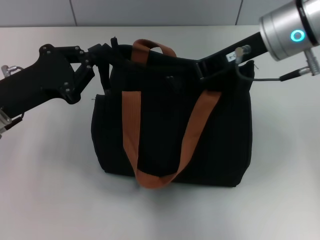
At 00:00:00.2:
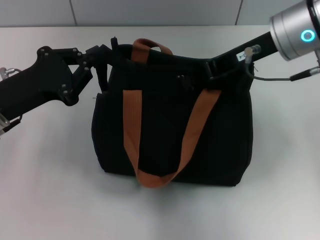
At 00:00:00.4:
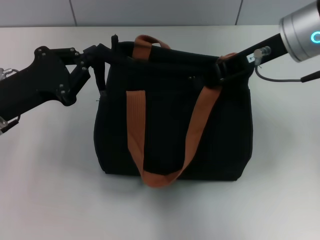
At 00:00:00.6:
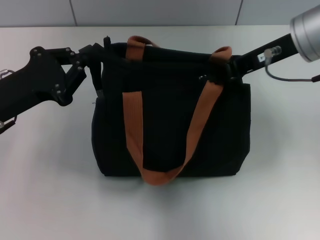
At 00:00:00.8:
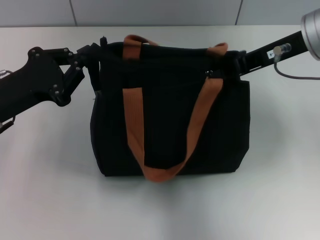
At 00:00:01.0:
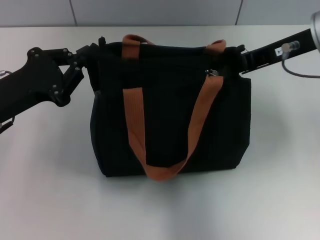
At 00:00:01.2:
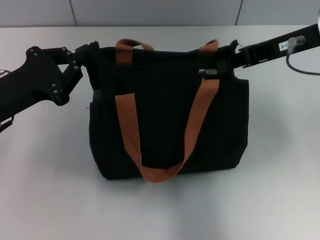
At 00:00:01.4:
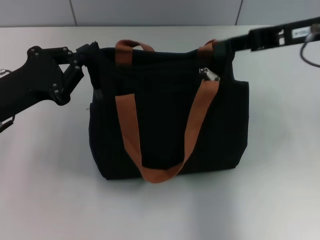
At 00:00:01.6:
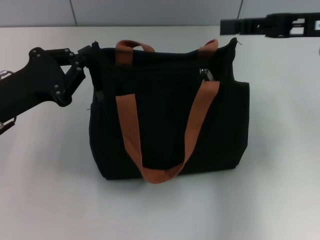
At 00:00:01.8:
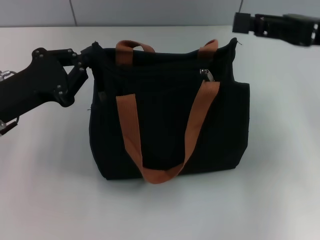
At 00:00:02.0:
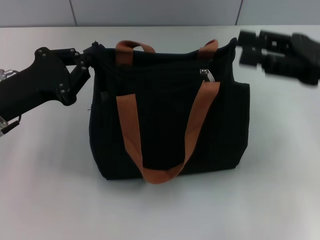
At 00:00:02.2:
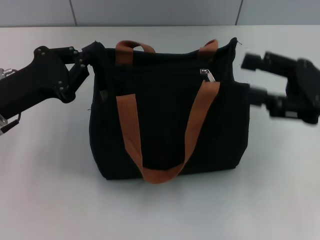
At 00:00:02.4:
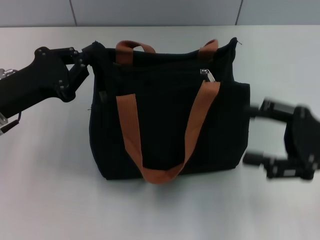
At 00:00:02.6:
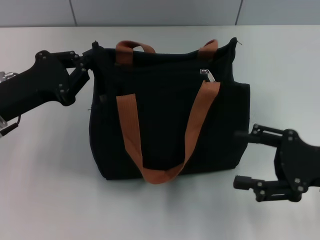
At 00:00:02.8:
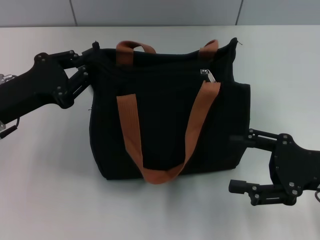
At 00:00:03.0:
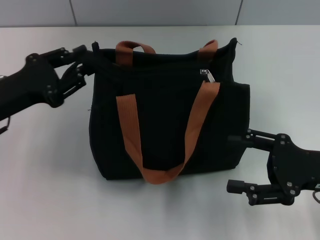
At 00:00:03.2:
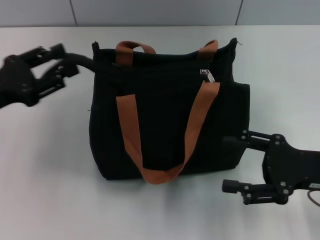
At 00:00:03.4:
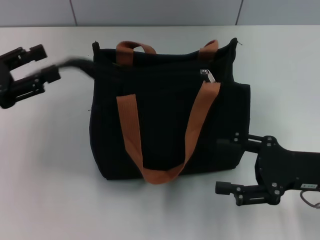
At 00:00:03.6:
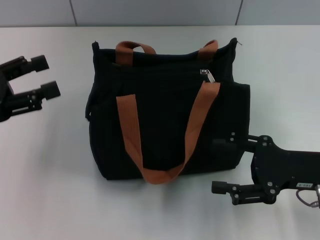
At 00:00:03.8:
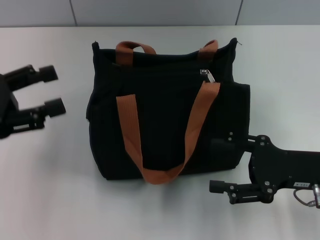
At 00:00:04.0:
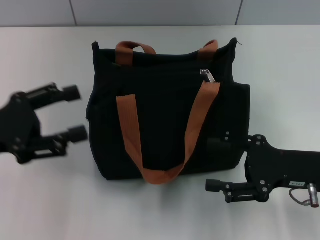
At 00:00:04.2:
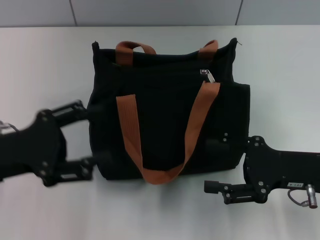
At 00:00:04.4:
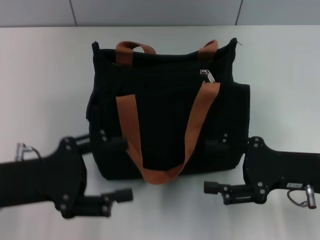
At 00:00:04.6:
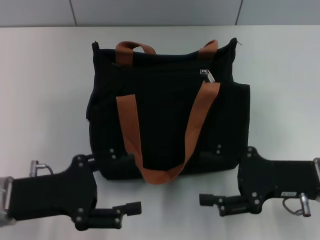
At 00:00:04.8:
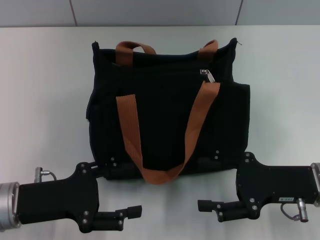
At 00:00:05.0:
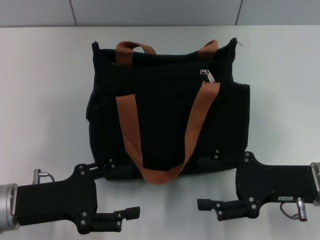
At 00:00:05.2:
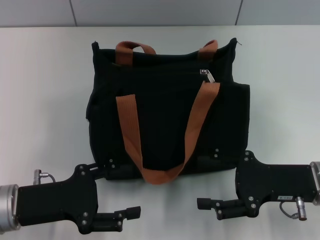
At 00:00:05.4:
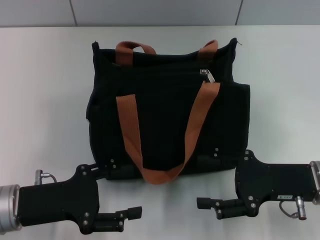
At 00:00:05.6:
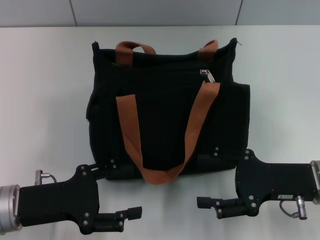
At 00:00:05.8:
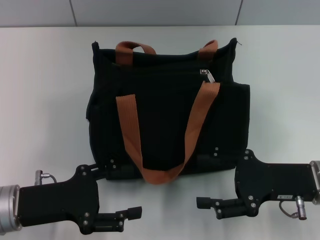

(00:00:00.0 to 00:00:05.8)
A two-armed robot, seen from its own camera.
Step, 00:00:01.6 - 00:00:03.8: Grab the zipper with your left hand.
00:00:00.0 - 00:00:01.4: The right gripper shifts some 10 cm to the right.
00:00:01.4 - 00:00:02.8: The right gripper shifts roughly 20 cm downward and backward, and opens up.
00:00:02.8 - 00:00:04.4: The left gripper shifts about 5 cm backward, goes to the left and returns, about 5 cm each way, and opens.
00:00:04.4 - 00:00:05.8: There are only small adjustments of the grippers.
